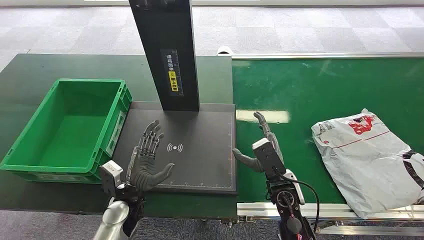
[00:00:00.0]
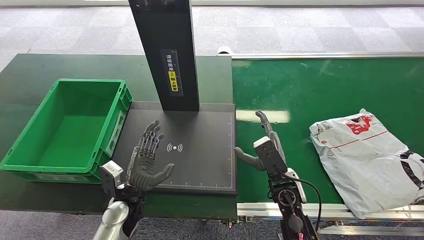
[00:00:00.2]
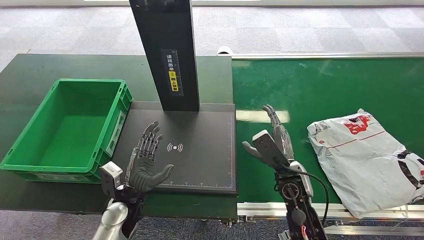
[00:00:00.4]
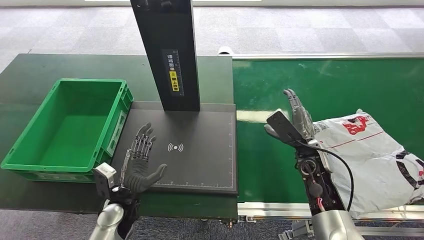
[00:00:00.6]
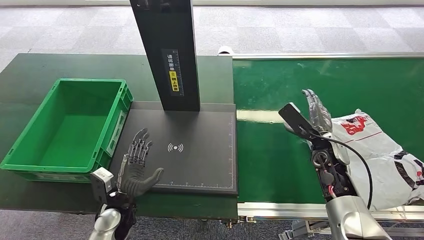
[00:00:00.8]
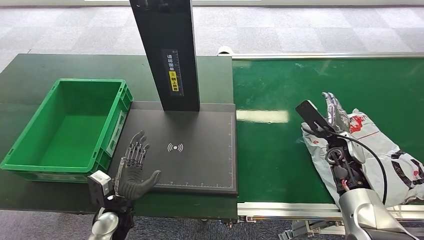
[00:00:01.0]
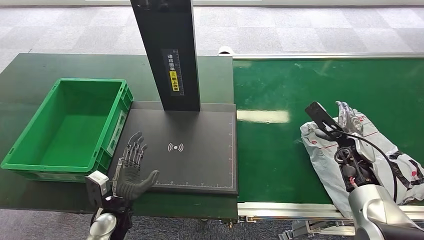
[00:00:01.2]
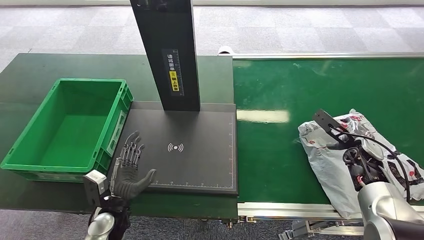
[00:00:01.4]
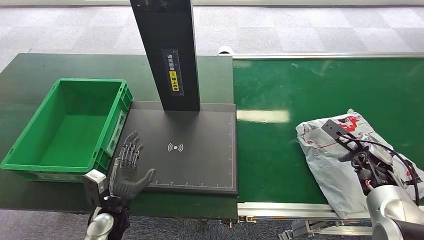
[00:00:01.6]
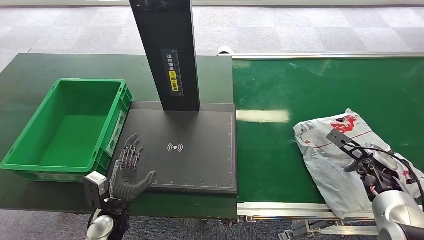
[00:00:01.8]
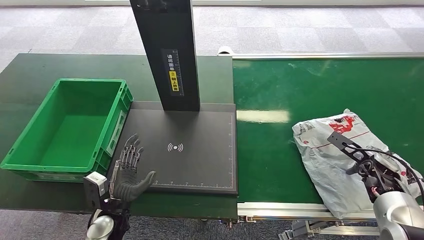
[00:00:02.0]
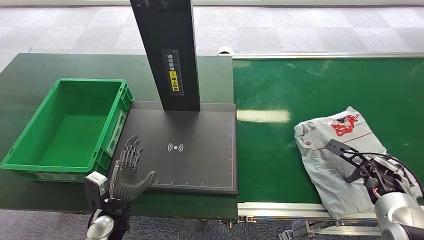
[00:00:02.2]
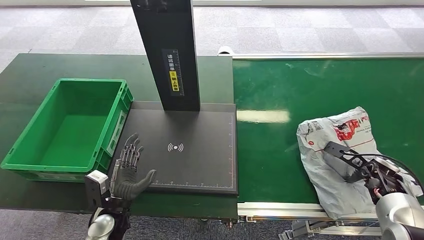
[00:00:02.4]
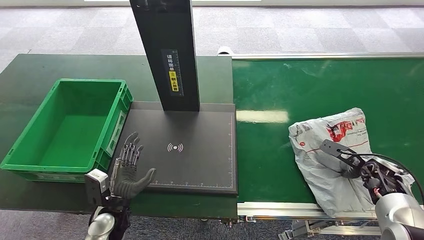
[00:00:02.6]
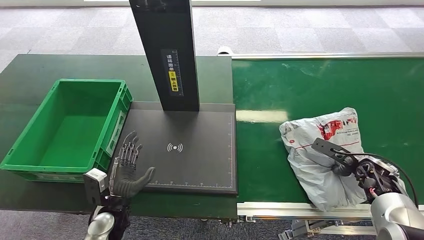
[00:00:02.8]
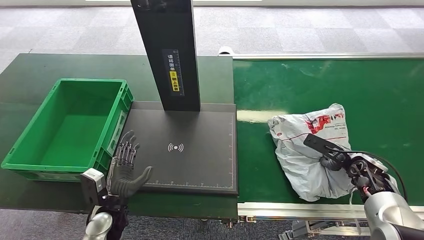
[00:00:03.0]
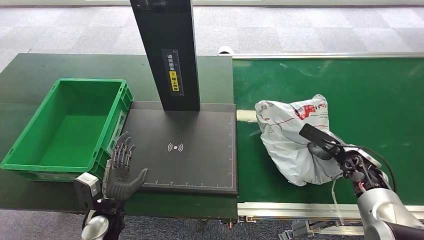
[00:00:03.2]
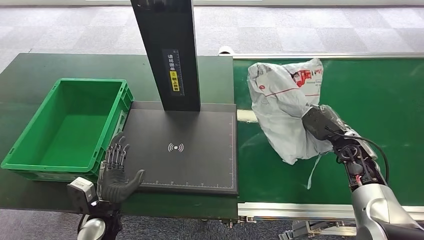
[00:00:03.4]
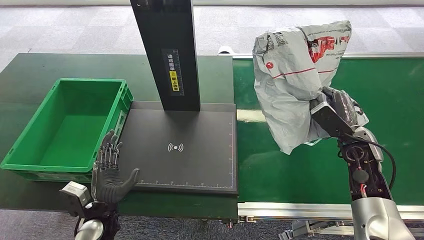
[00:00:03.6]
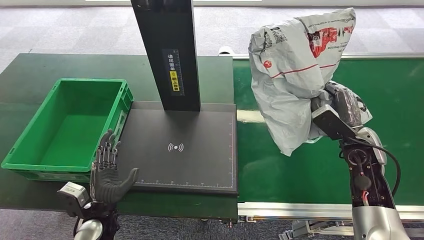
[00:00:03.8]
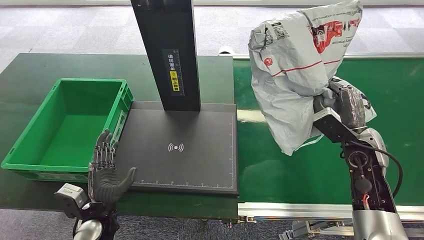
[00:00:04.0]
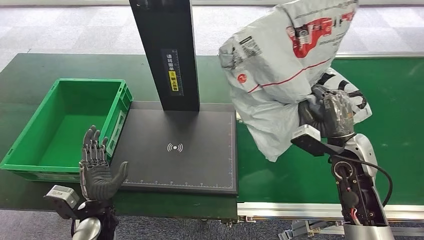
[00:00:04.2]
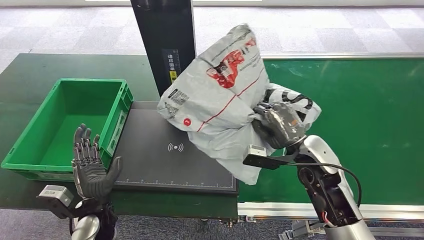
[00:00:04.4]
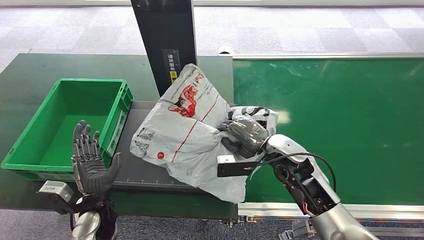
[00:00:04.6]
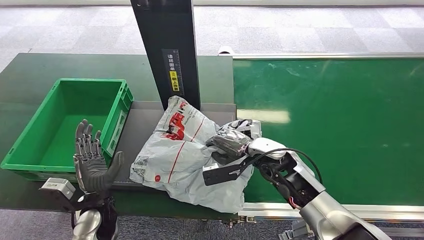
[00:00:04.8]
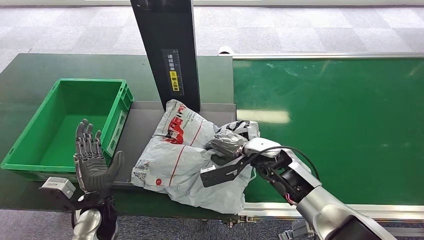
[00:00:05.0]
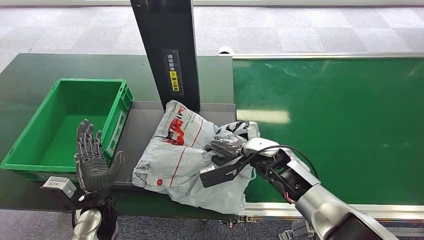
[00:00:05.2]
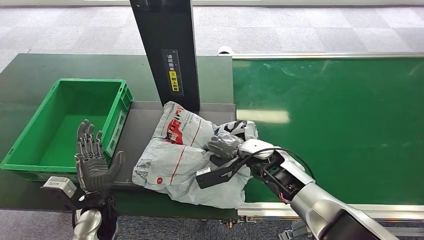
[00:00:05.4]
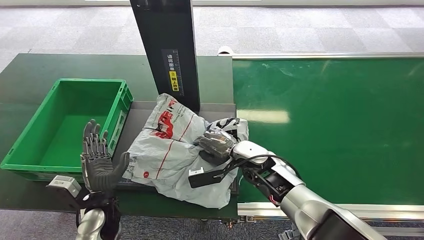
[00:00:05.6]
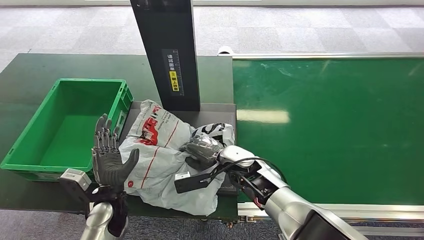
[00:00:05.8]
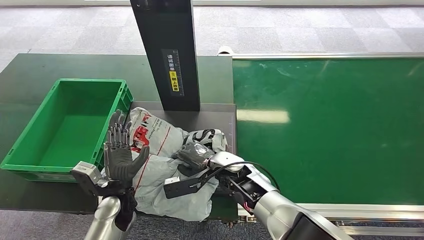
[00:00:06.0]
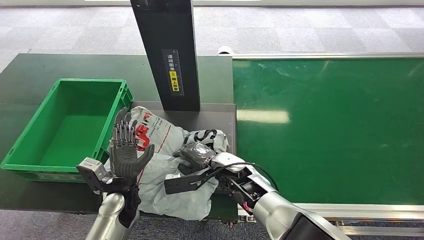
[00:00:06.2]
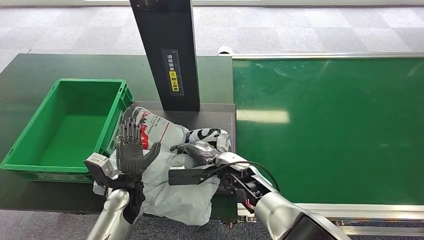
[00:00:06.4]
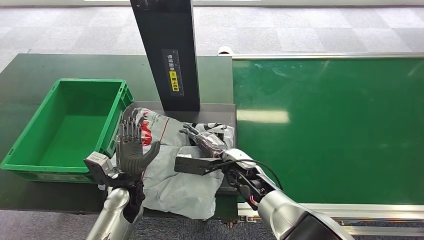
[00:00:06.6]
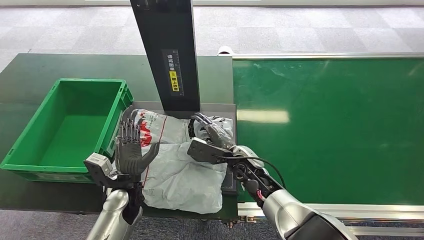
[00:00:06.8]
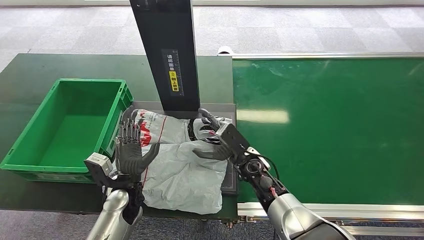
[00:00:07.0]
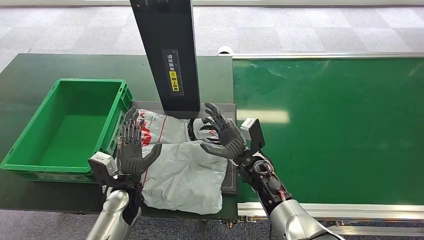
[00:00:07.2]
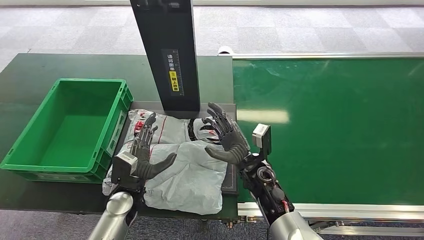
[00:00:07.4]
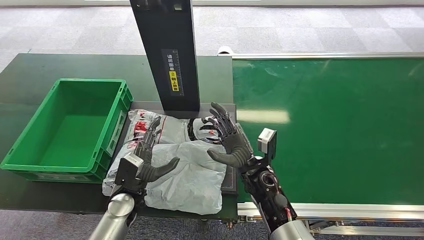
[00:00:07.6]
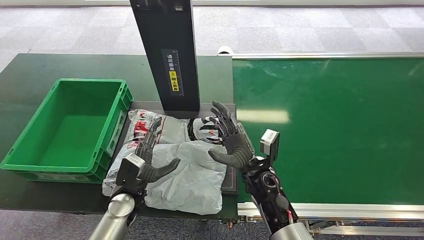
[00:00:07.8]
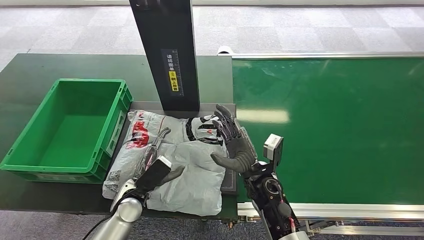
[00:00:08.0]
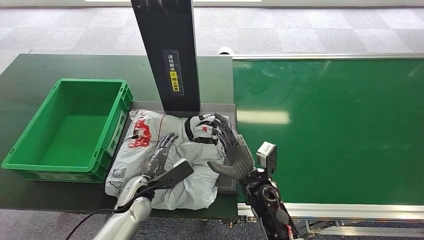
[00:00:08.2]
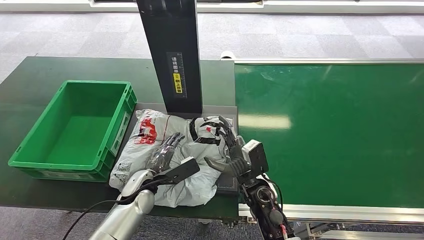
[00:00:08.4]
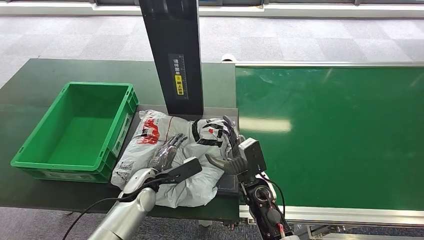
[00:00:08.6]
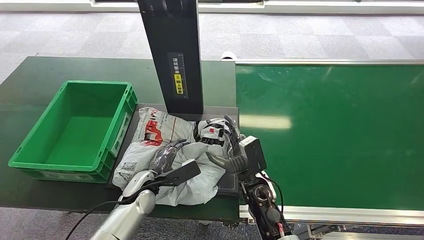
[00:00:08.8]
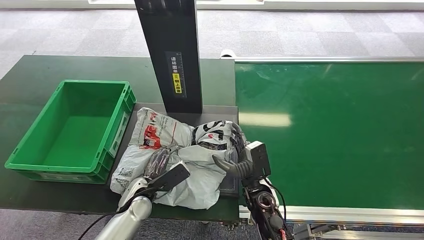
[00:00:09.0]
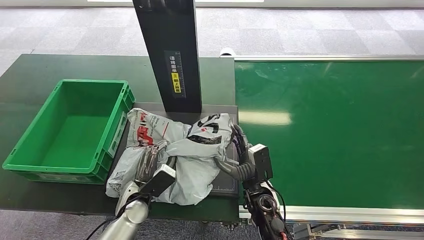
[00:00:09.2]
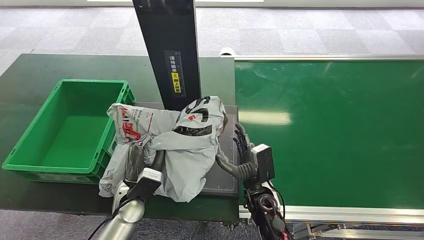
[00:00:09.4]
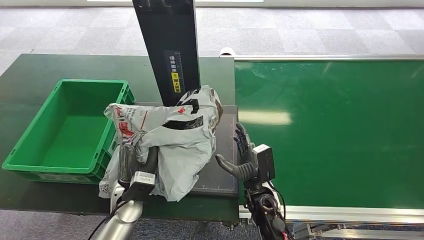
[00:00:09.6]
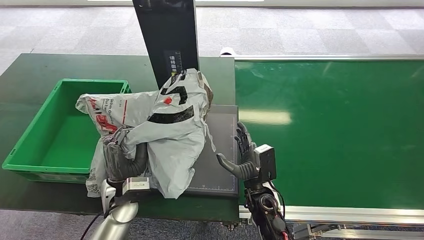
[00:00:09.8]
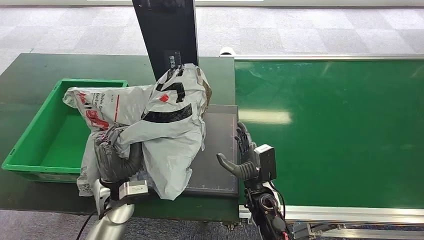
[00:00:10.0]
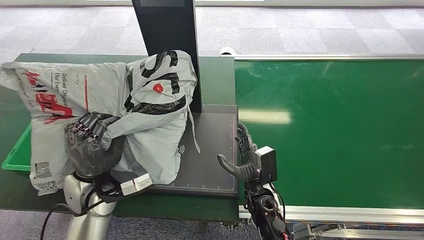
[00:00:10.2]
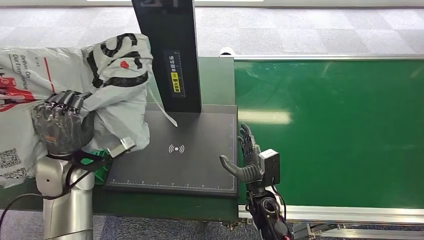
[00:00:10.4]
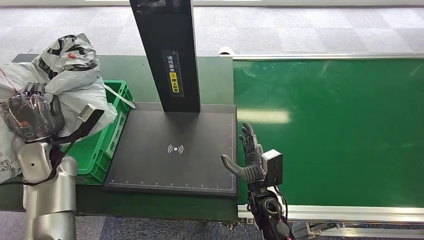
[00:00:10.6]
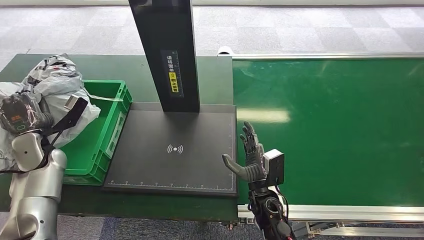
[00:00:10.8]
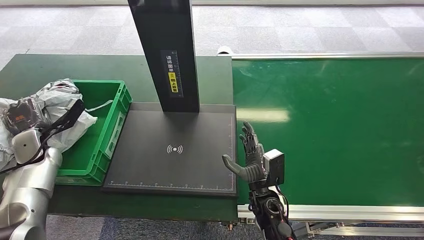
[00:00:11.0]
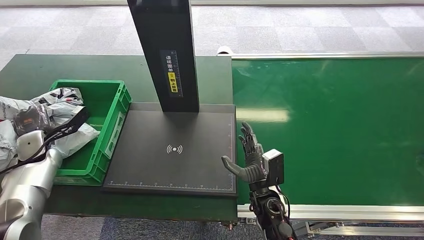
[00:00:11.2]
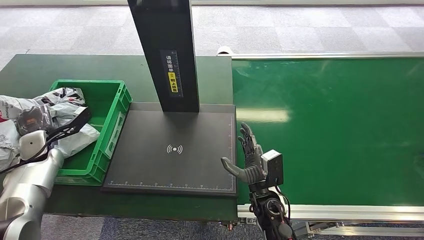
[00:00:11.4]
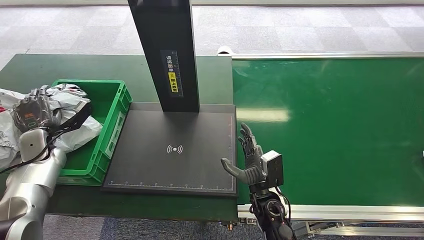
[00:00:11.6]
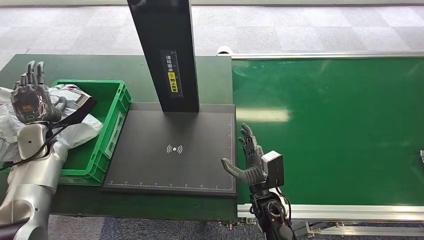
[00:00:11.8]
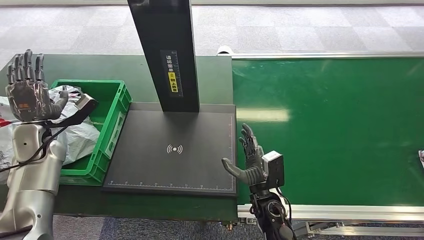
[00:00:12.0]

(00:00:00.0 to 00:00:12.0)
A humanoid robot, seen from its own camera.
Step, 00:00:00.0 - 00:00:03.4: Pick up the package from the conveyor belt.
Step, 00:00:03.6 - 00:00:07.2: Place the package onto the inbound machine.
Step, 00:00:07.4 - 00:00:10.0: Pick up the package from the inbound machine.
Step, 00:00:10.2 - 00:00:12.0: Place the package into the parcel locker.
00:00:06.0 - 00:00:07.6: The right hand shifts by approximately 5 cm.
